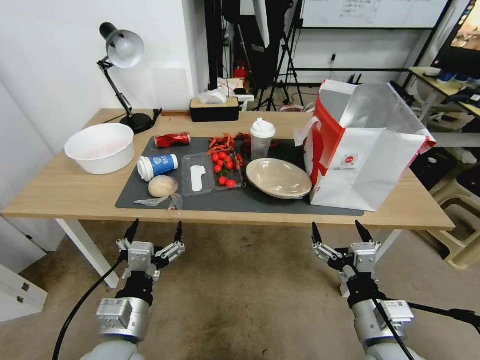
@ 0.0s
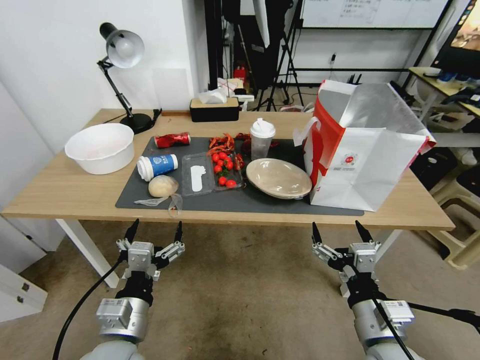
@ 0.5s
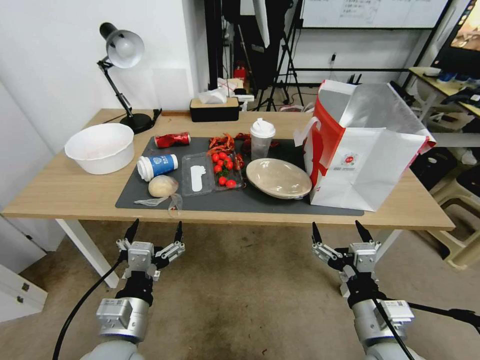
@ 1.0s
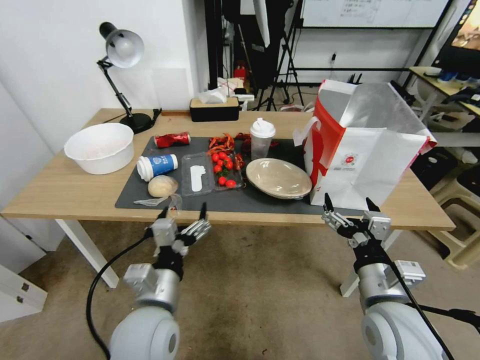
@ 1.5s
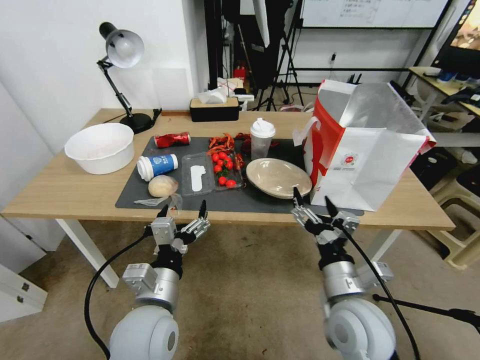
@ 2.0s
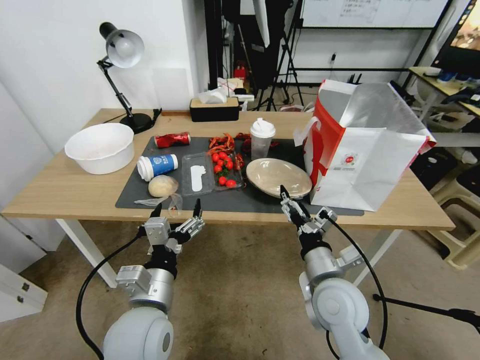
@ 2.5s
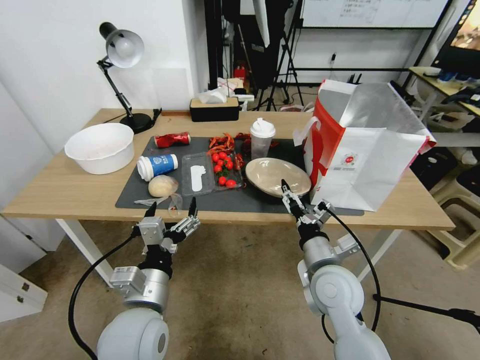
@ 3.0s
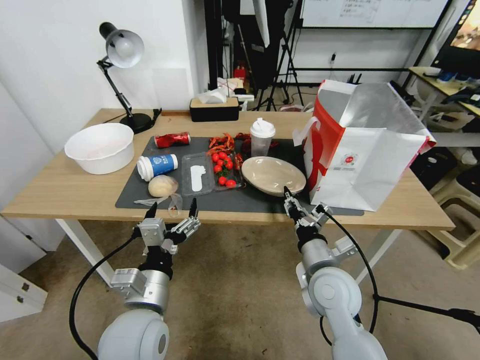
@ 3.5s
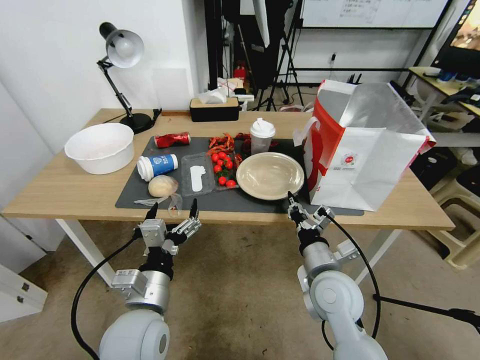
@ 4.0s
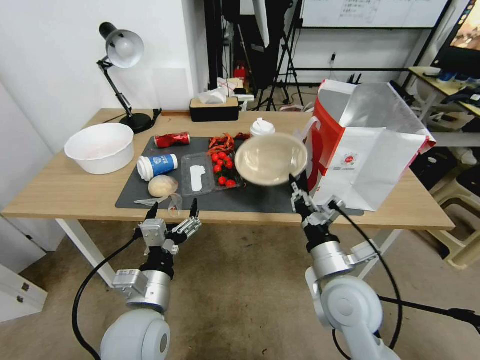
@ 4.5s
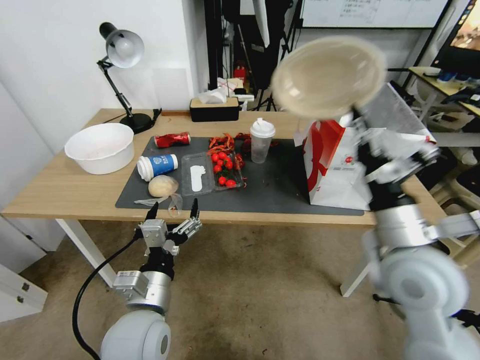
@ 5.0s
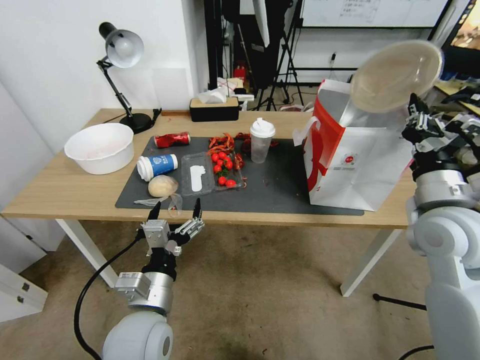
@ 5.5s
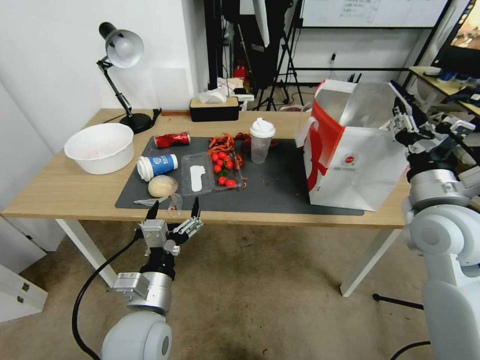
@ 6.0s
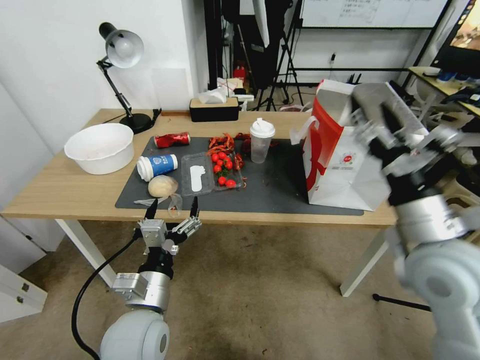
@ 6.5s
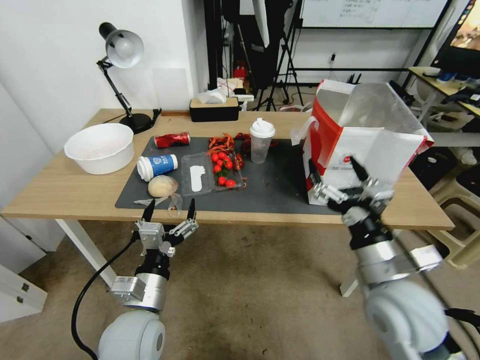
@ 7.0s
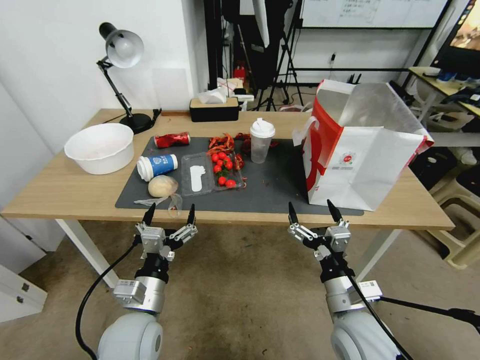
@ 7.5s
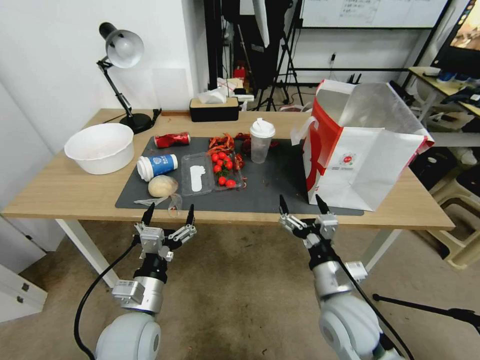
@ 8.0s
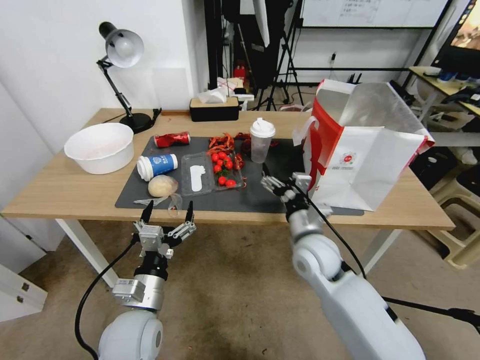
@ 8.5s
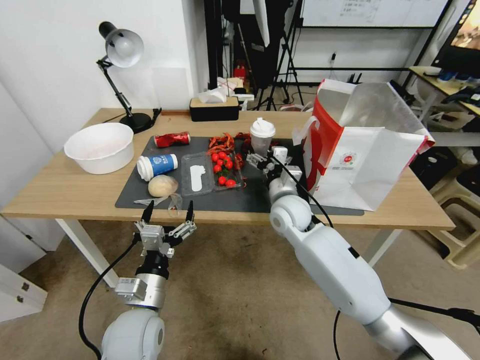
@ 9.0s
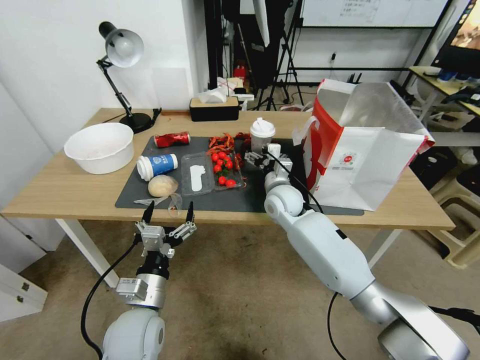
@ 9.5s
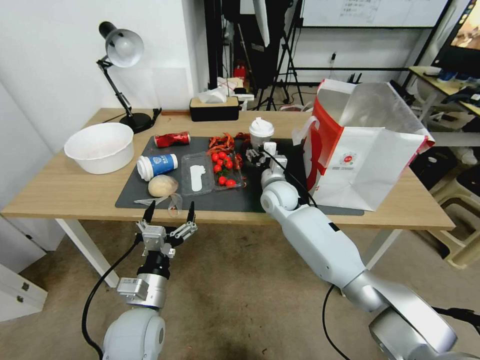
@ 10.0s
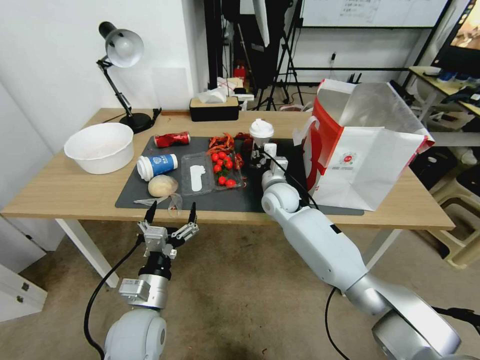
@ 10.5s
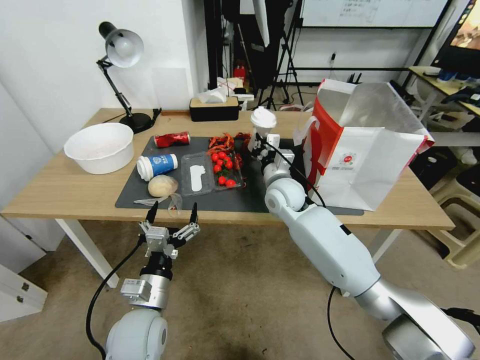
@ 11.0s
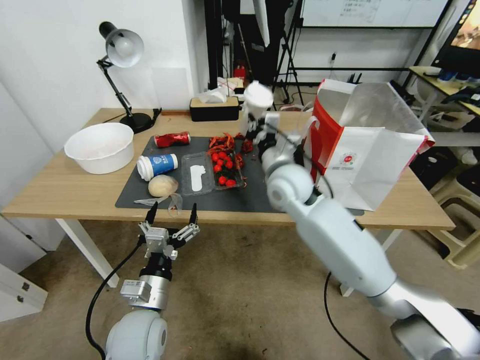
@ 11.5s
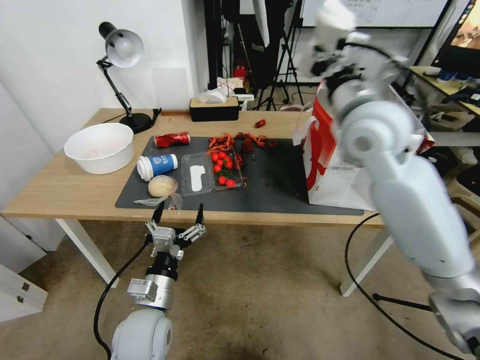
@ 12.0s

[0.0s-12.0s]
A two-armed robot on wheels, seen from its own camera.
2.0s to 4.0s: The right gripper is displaced forward by some 5 cm, and closes up.
4.0s to 6.0s: The right gripper moves upward and to the right, some 20 cm, and opens.
6.0s to 8.0s: The right gripper heads downward, to the left and backward, covering about 25 cm, and opens. The left gripper changes place by about 5 cm.
8.0s to 10.0s: The right gripper moves forward, some 30 cm.
10.0s to 12.0s: The right gripper is displaced upward by some 30 cm, and closes up.

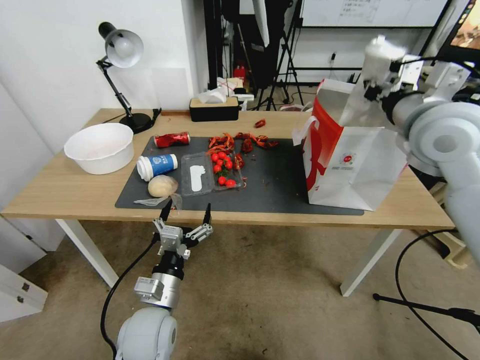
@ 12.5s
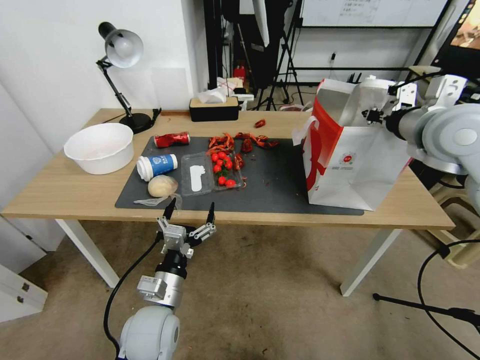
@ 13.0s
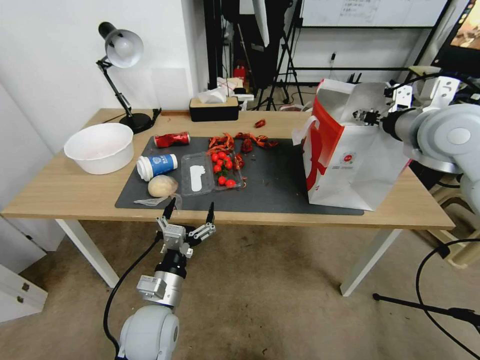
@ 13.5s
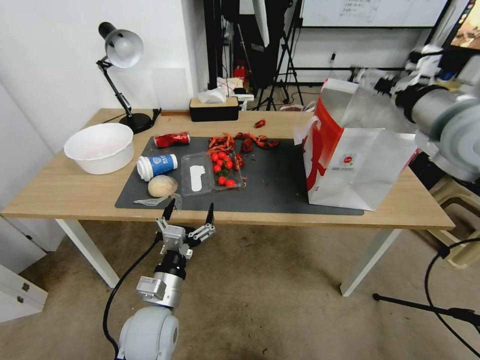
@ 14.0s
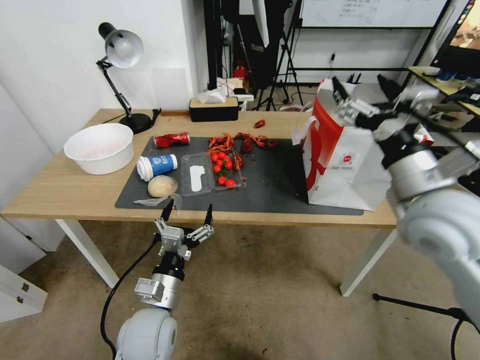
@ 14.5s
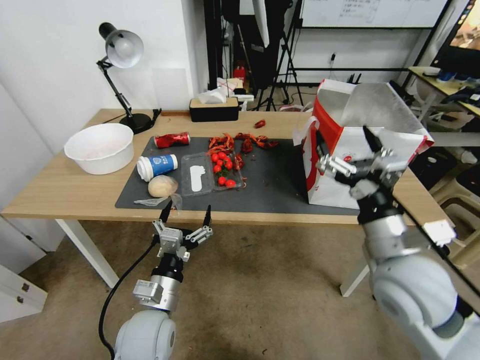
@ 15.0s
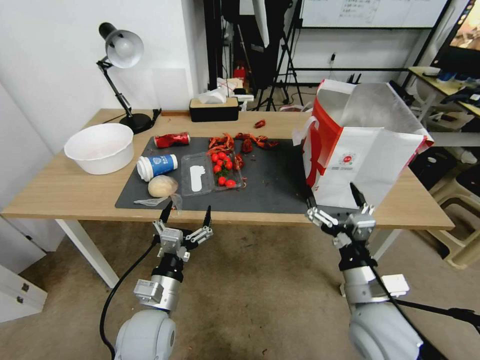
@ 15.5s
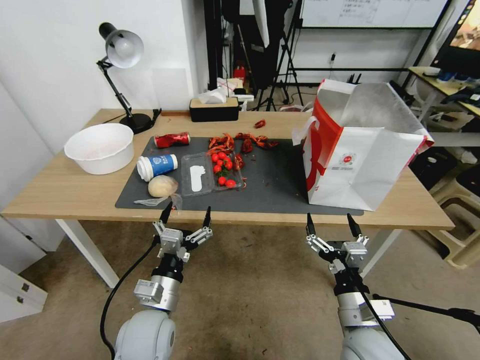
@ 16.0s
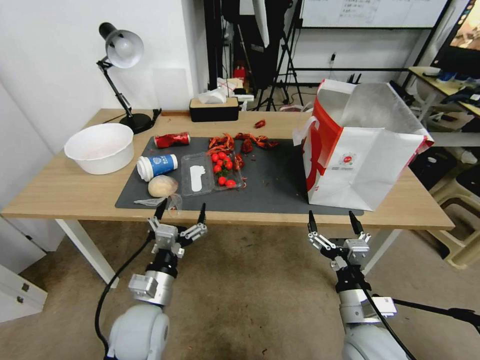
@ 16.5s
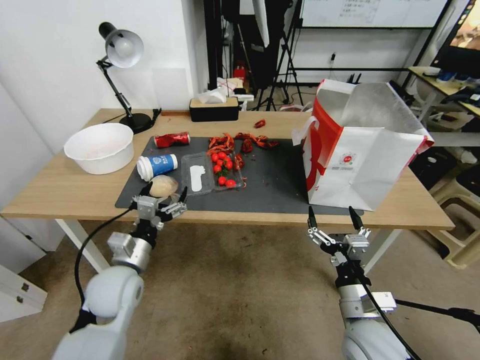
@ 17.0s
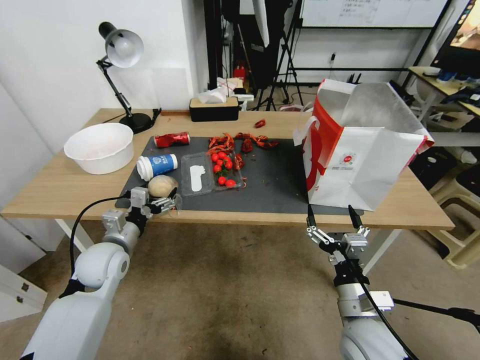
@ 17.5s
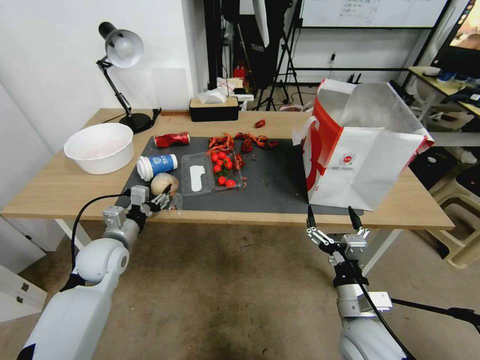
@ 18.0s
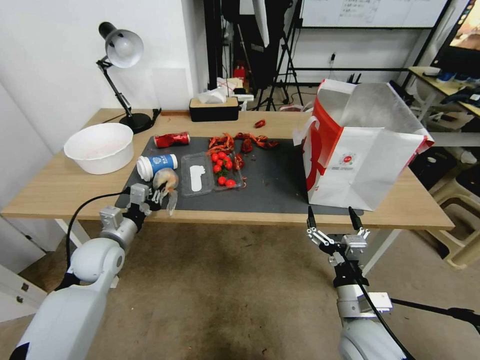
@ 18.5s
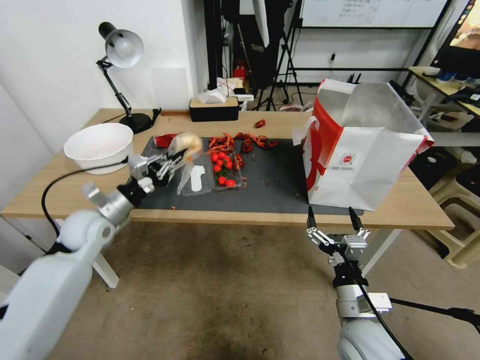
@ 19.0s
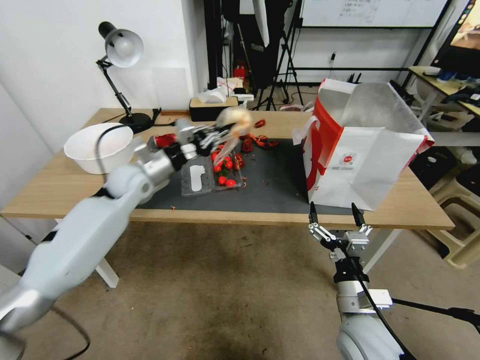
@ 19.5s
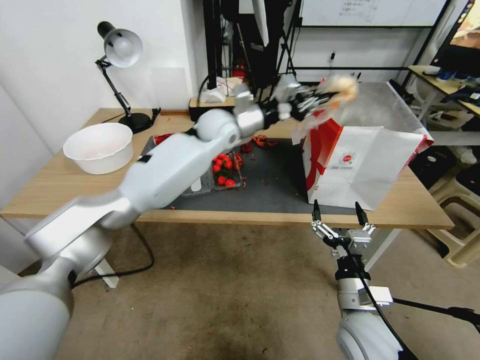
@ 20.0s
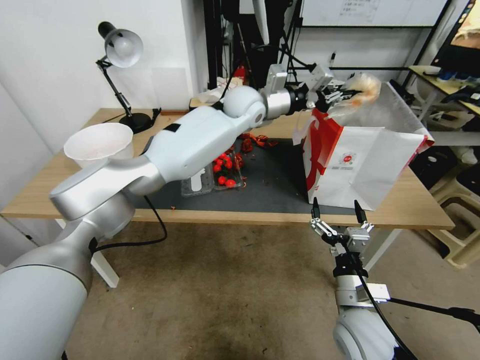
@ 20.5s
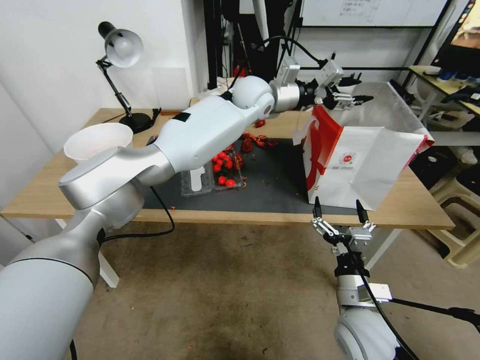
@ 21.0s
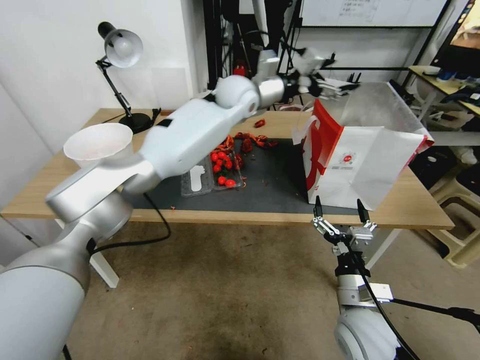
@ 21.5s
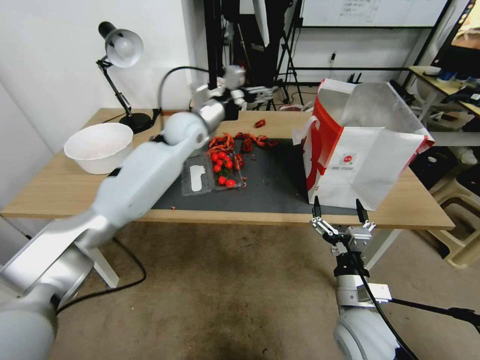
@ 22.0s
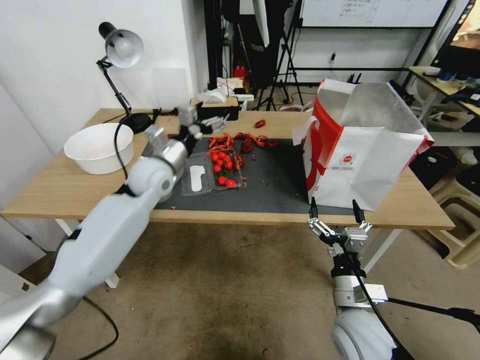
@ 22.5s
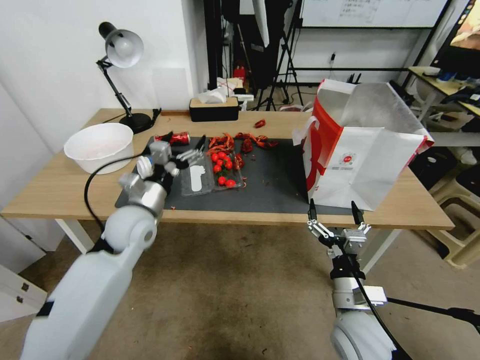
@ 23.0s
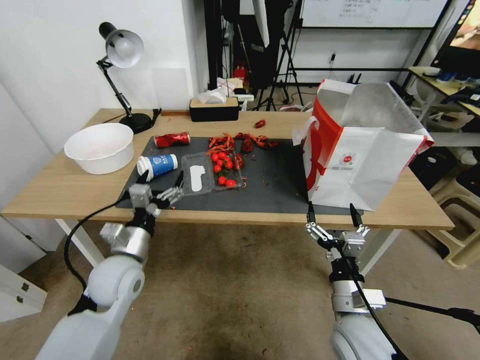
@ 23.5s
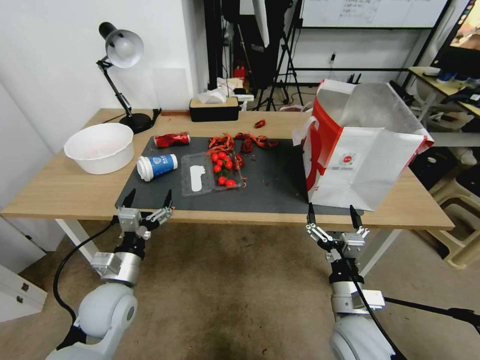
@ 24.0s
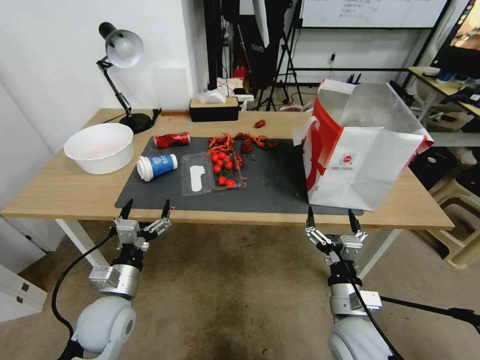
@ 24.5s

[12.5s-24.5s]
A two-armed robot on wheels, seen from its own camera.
12.5s to 14.5s: The right gripper is displaced backward and downward by approximately 15 cm, and opens up.
14.5s to 16.5s: The right gripper travels downward and backward by about 30 cm.
16.5s to 18.5s: The left gripper moves to the left and forward, some 20 cm, and closes up.
18.5s to 20.5s: The left gripper travels to the right, forward and upward by roughly 50 cm.
20.5s to 22.5s: The left gripper is displaced to the left, backward and downward by roughly 30 cm, and opens its fingers.
22.5s to 24.5s: The left gripper travels backward and downward by about 30 cm.

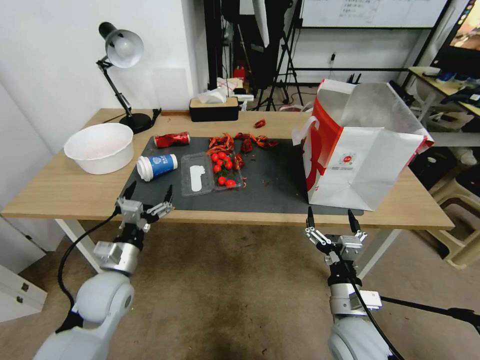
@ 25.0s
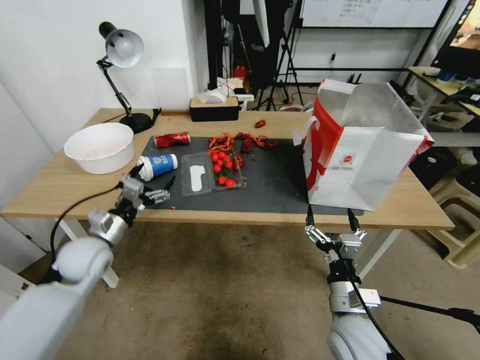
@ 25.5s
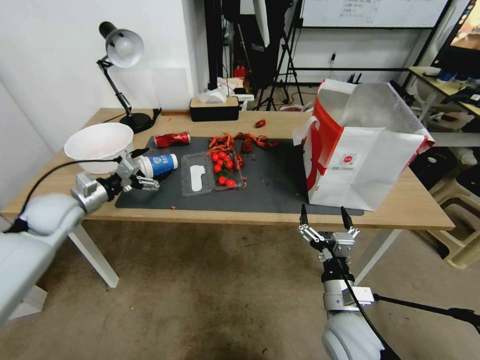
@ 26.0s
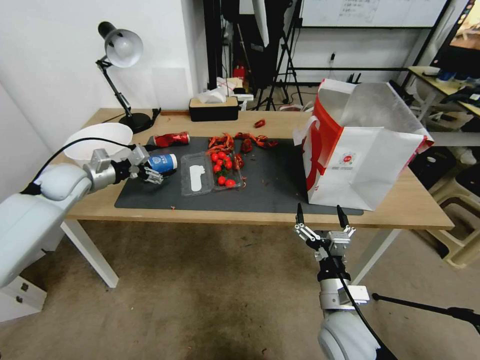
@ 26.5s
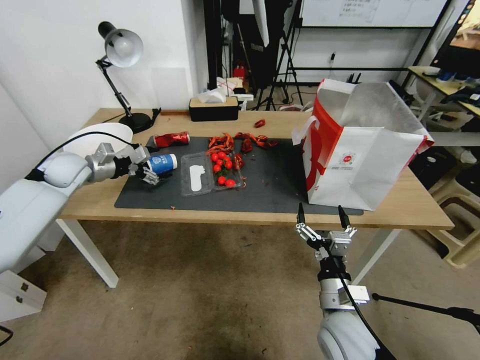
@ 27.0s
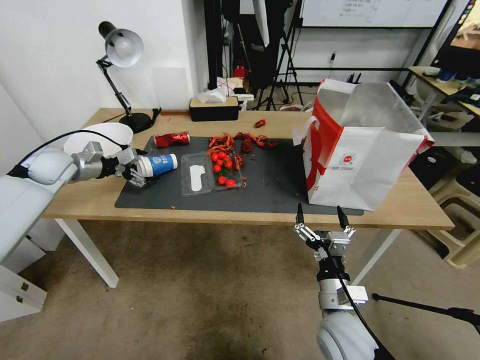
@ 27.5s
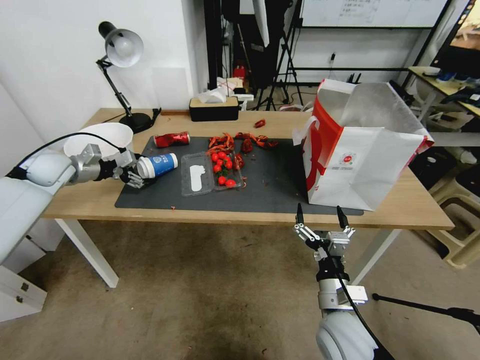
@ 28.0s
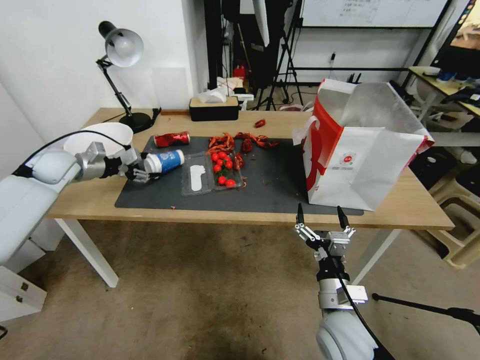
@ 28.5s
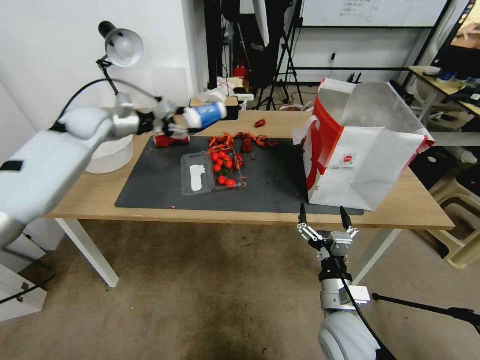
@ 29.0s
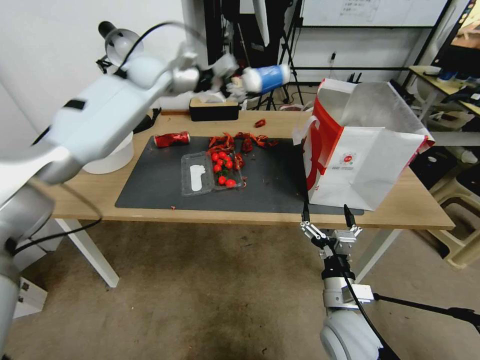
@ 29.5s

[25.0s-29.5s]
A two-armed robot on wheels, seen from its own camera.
25.0s to 27.0s: The left gripper goes about 30 cm forward, to the left and upward.
27.0s to 29.5s: The left gripper shifts roughly 30 cm to the right, upward and forward, and closes up.
